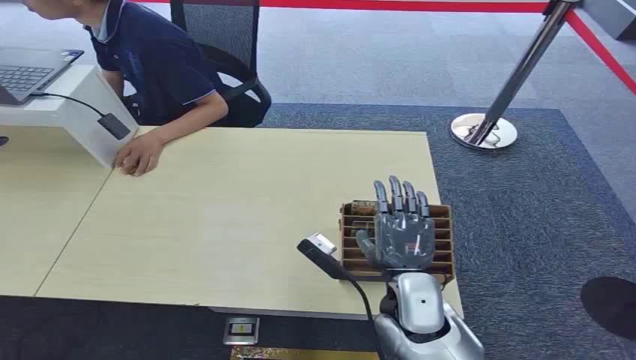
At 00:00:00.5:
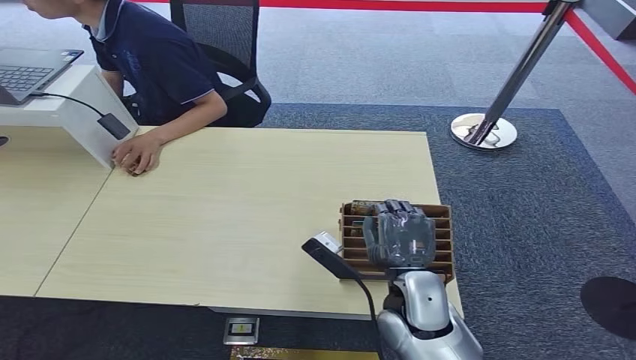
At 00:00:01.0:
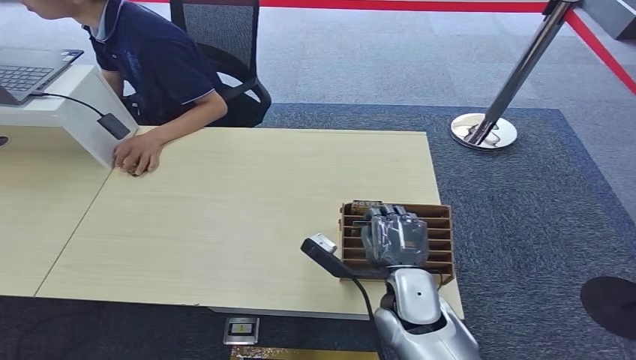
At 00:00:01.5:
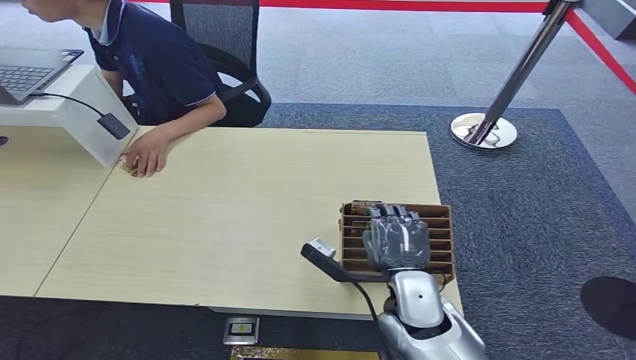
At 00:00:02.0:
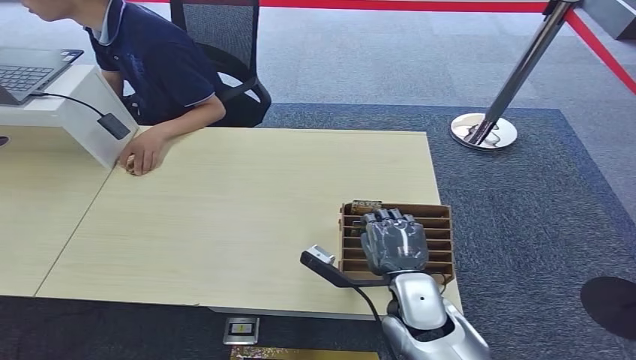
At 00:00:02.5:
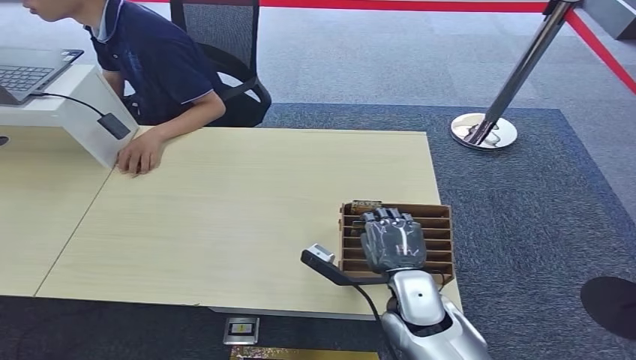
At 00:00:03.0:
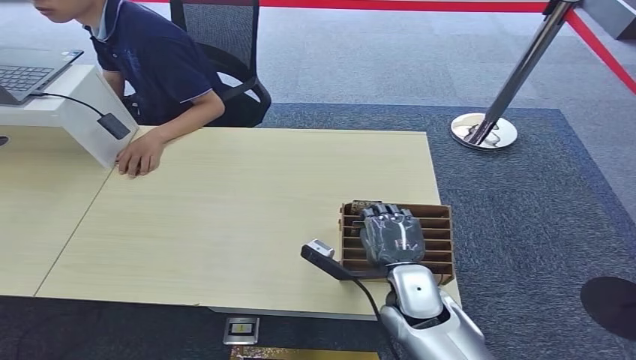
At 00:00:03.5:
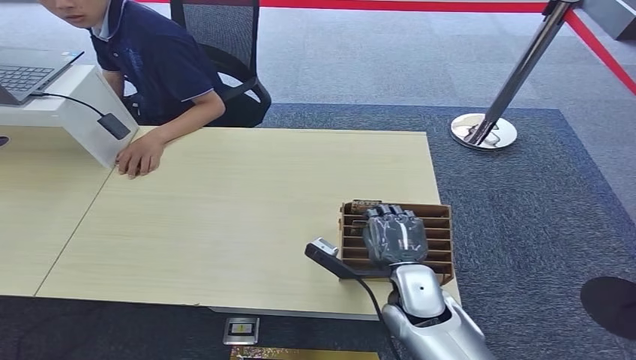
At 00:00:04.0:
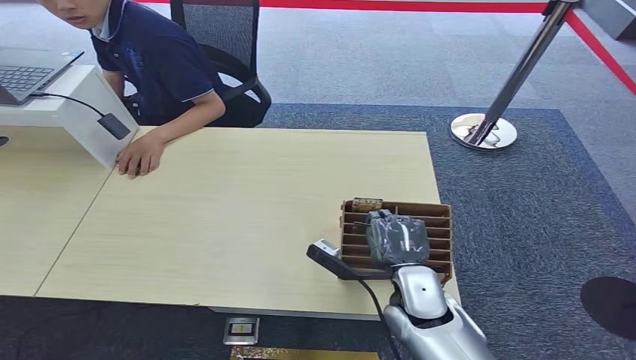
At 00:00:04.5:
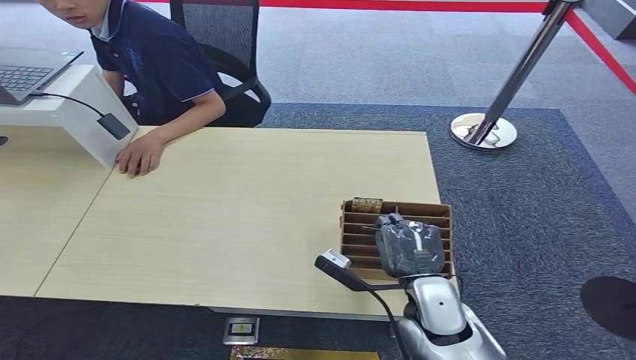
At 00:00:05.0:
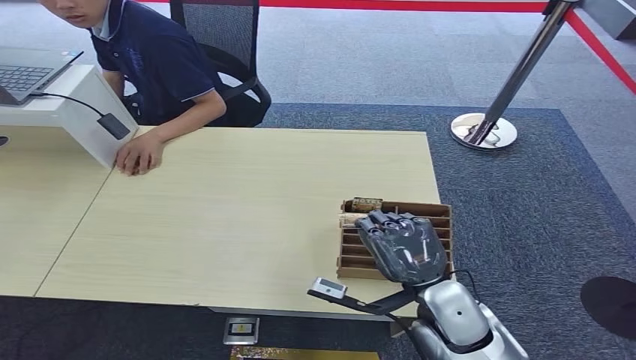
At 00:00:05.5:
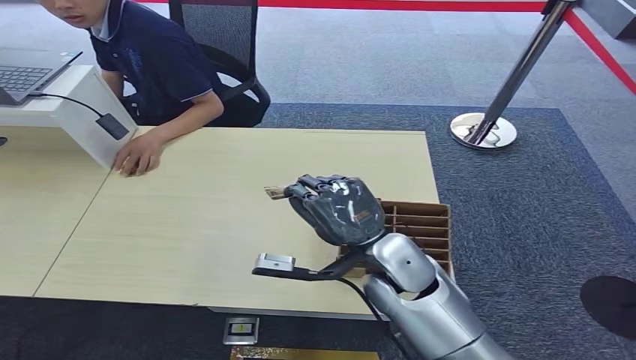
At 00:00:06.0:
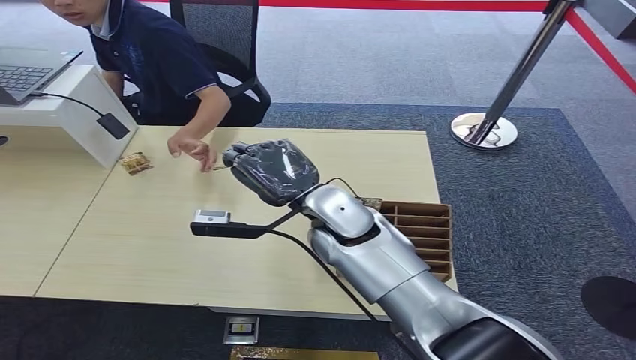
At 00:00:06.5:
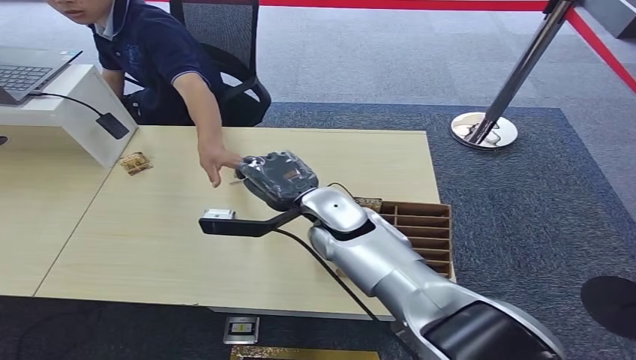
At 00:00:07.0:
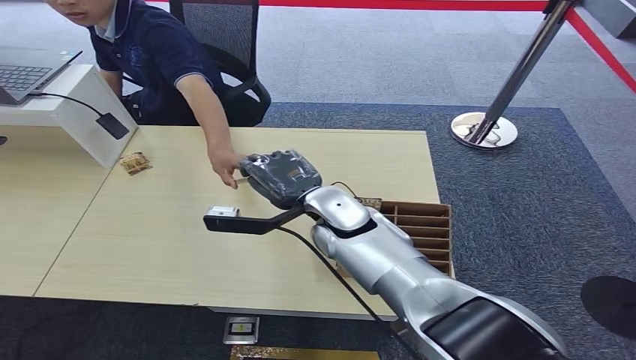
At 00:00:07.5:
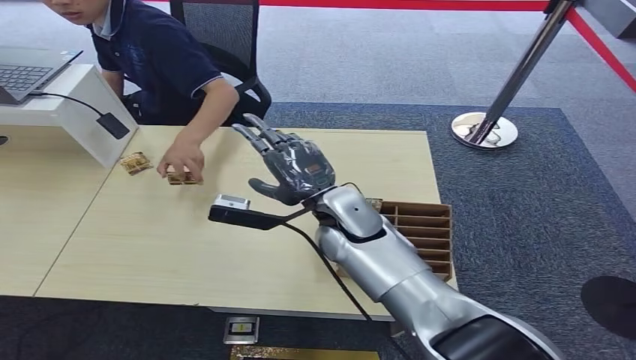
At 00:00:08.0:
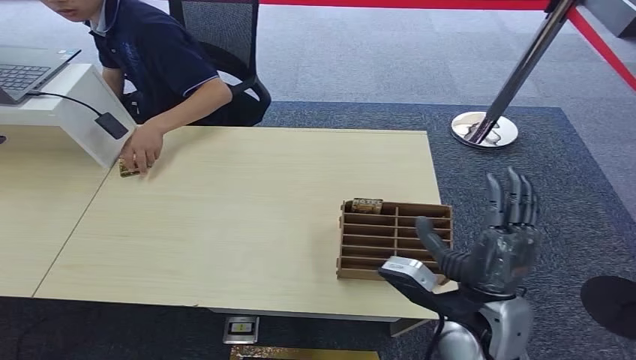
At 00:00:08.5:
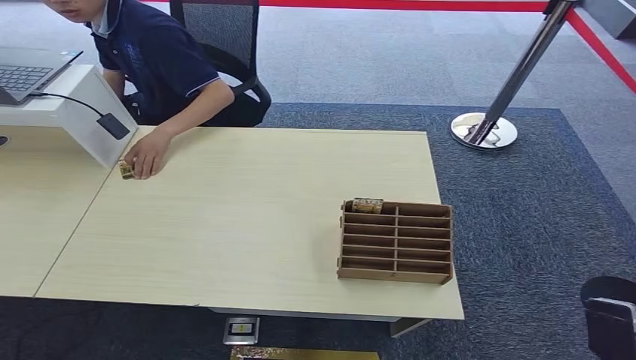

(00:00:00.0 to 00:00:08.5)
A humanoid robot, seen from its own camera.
Step, 00:00:00.0 - 00:00:05.0: Pick up the room card from the card holder.
Step, 00:00:05.5 - 00:00:08.5: Hand the room card to the target.
00:00:02.0 - 00:00:04.0: There are only small adjustments of the hands.
00:00:04.0 - 00:00:06.5: The right hand is displaced forward, upward and to the left by some 20 cm.
00:00:06.5 - 00:00:08.5: The right hand is displaced to the right and backward by some 40 cm.

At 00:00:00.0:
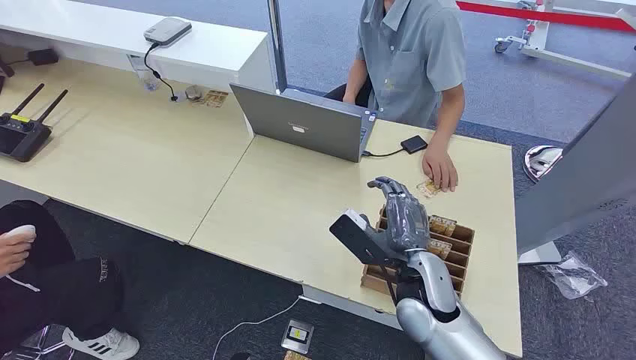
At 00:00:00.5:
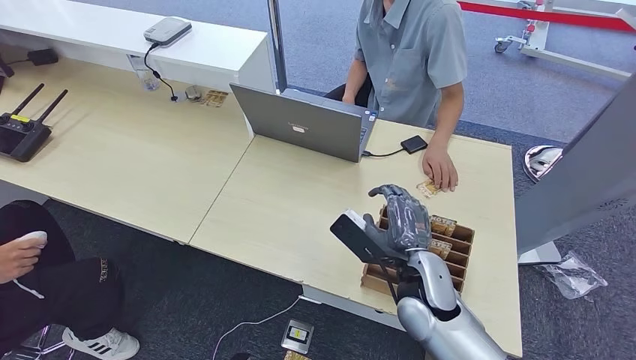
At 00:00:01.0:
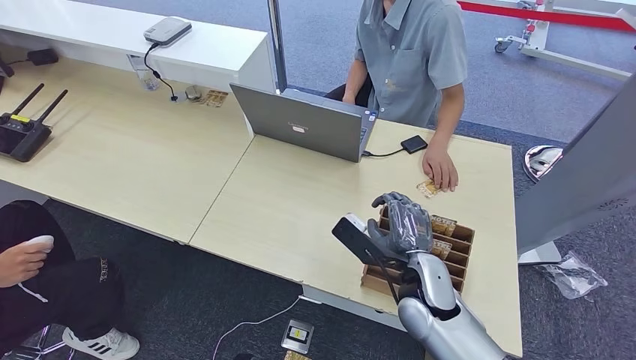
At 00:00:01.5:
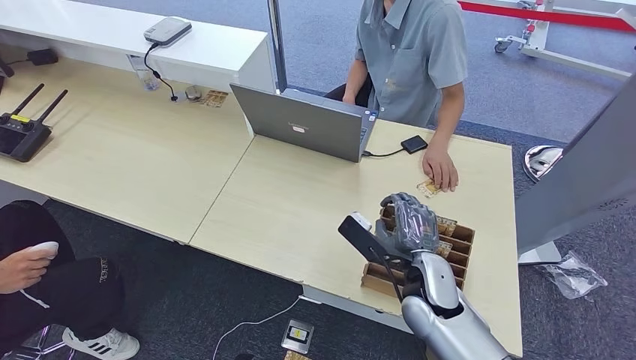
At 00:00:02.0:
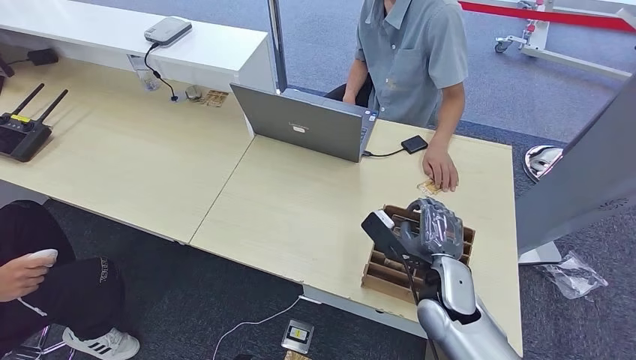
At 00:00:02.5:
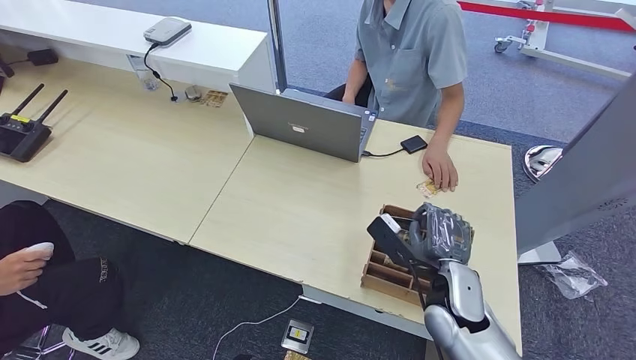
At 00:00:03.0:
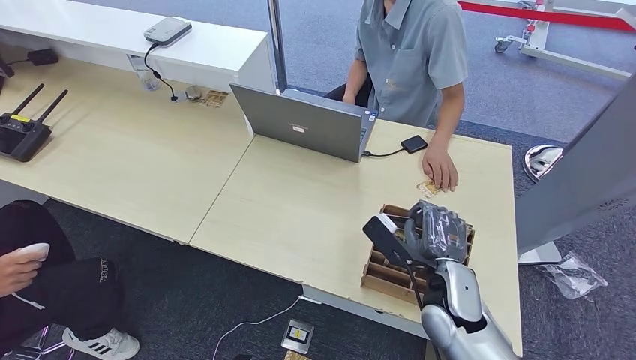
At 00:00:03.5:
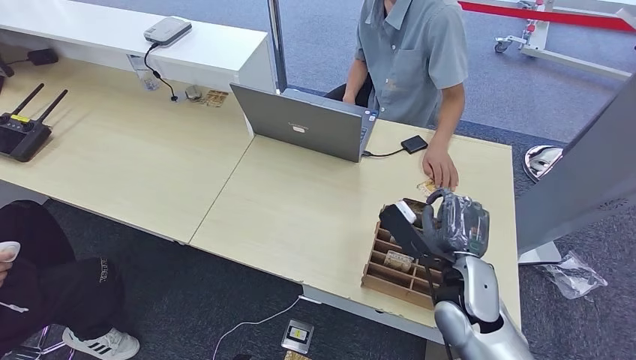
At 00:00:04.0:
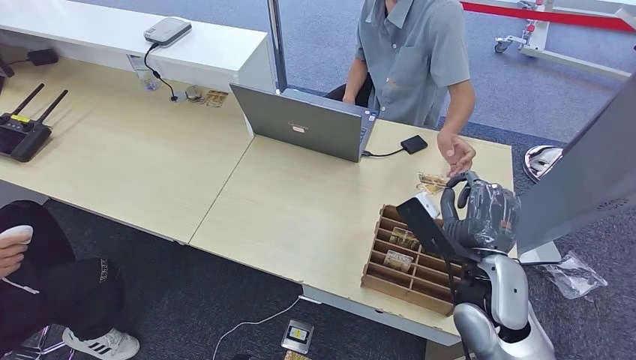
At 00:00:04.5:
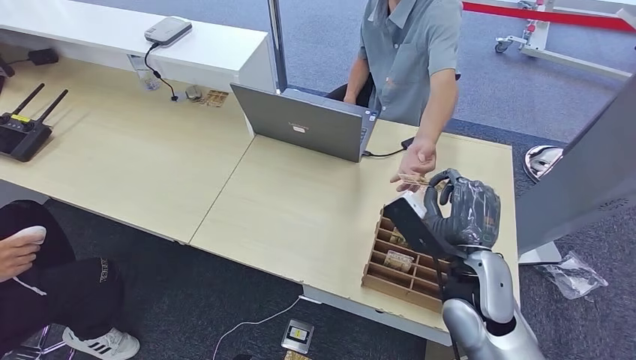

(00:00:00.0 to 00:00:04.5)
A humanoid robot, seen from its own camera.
Step, 00:00:00.0 - 00:00:04.0: Pick up the room card from the card holder.
00:00:02.0 - 00:00:04.5: The right hand moves upward, about 5 cm.
